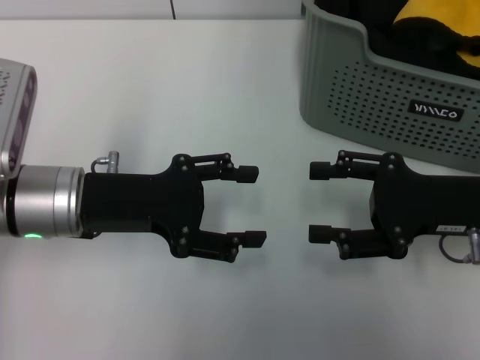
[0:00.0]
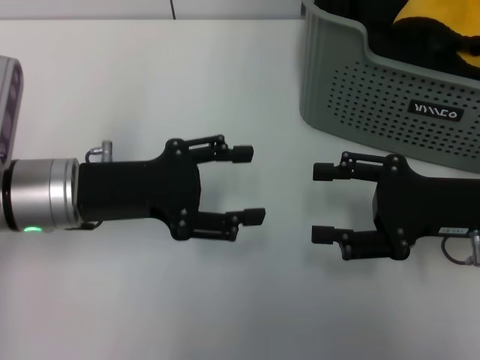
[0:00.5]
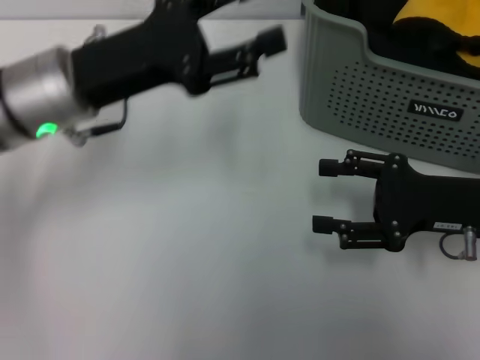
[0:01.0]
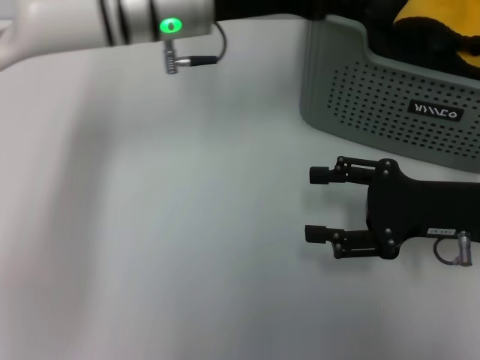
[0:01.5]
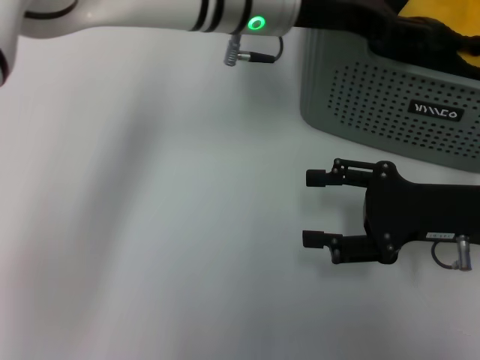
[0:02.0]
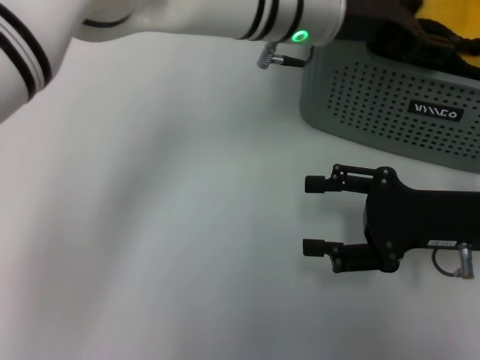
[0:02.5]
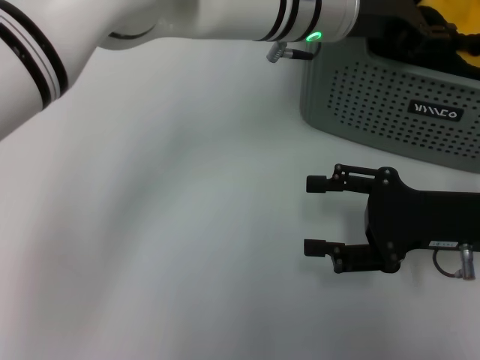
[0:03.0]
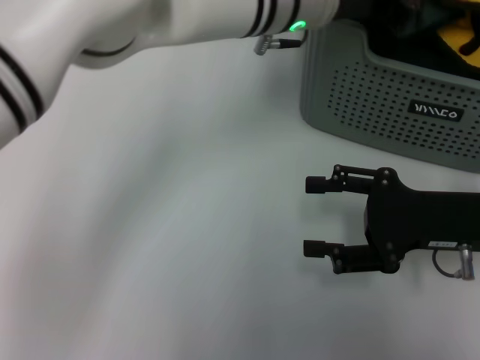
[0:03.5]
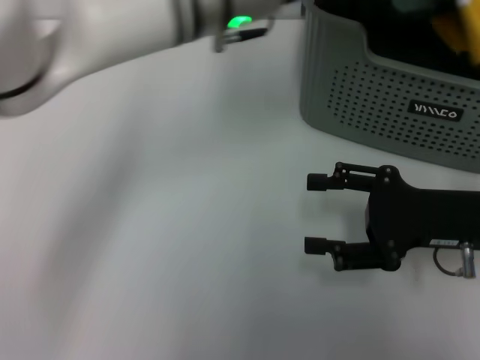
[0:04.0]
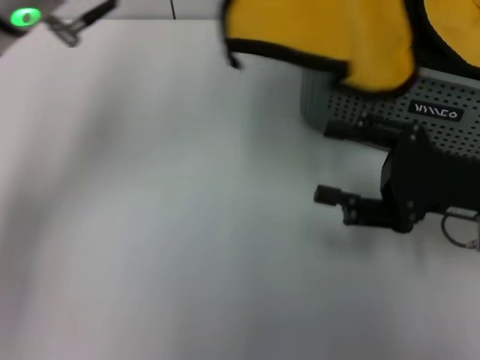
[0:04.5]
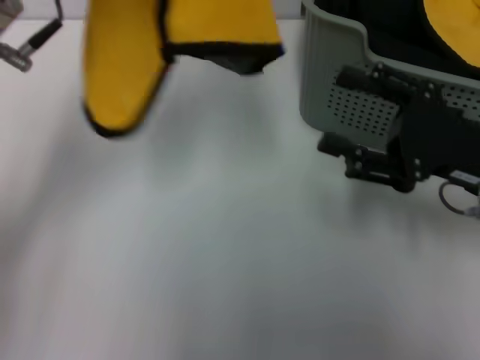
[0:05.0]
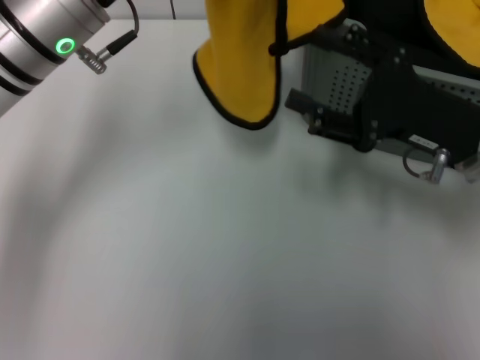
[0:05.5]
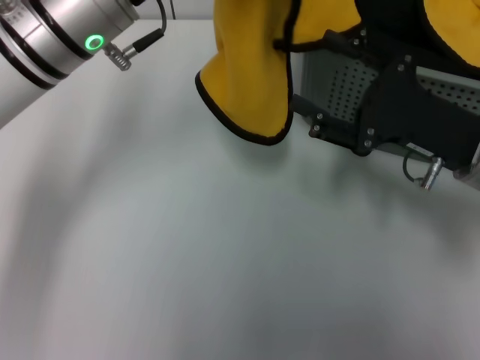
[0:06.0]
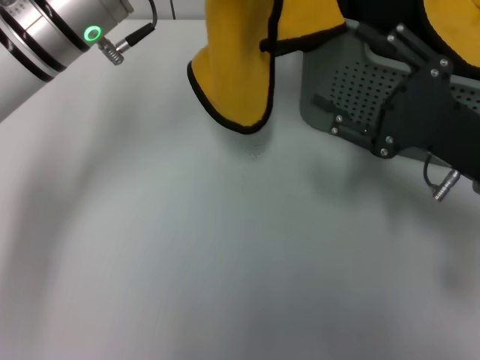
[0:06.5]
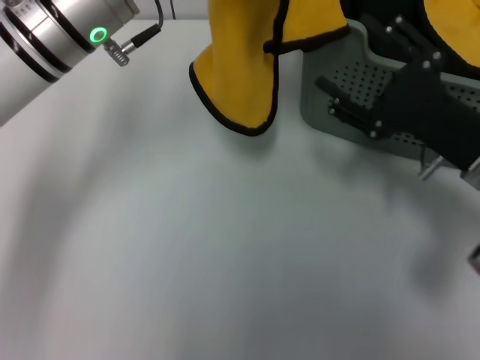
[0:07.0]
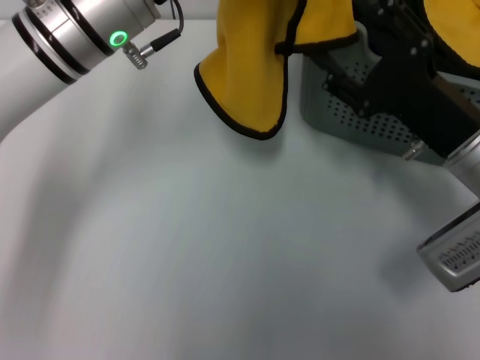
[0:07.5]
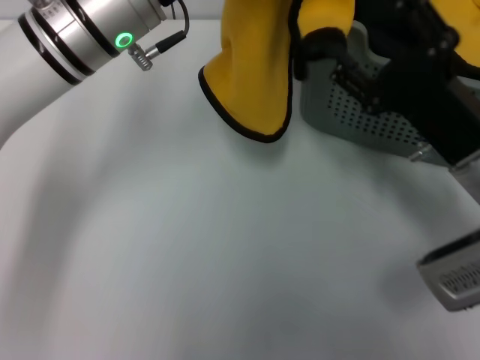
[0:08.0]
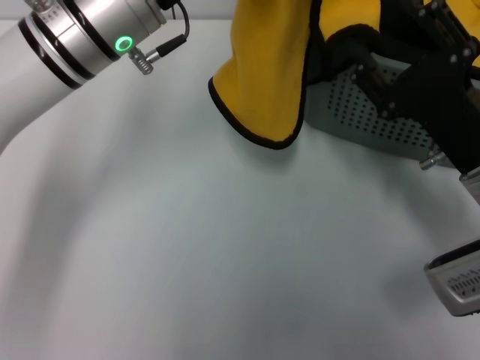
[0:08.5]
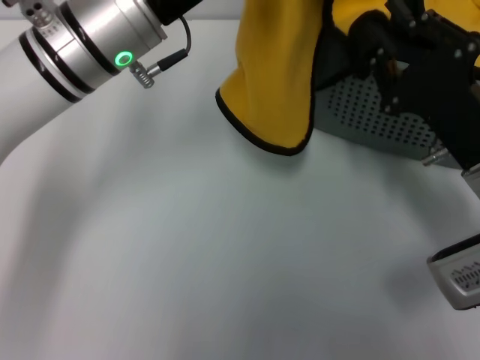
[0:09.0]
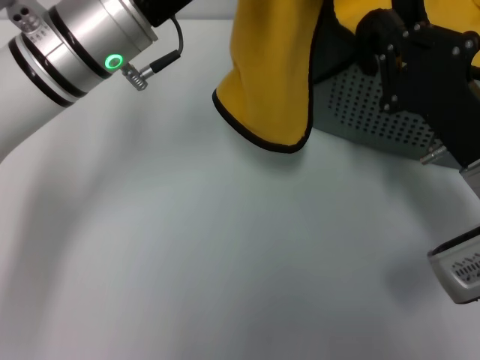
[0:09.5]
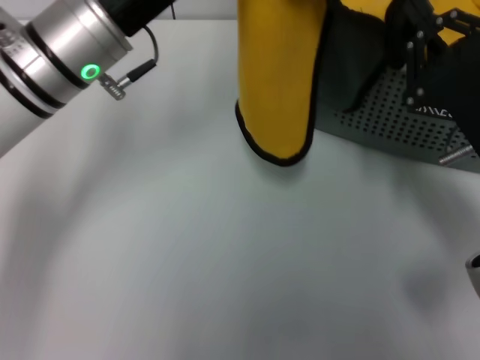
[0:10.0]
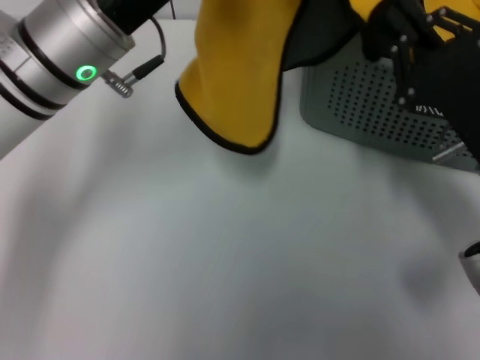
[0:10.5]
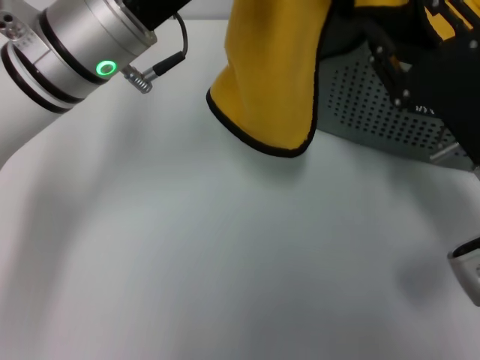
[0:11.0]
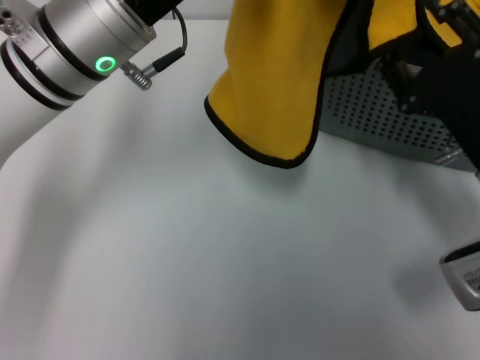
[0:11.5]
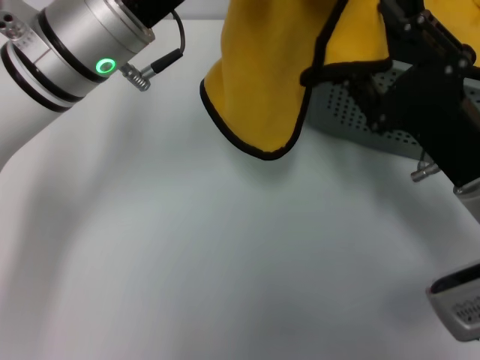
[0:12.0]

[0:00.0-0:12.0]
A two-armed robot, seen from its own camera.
Task of the whole recording: pick up the towel from the storage box and lay it flat on the table.
Step, 0:00.0 to 0:03.0: Pick up a towel with the left gripper.
0:00.0 to 0:02.0: The left gripper travels to the right, forward and upward by some 25 cm.
0:02.0 to 0:04.0: The left gripper ends up some 5 cm from where it was, and closes.
0:04.0 to 0:06.0: The left gripper is displaced to the left by about 10 cm.
0:08.0 to 0:10.0: The right gripper closes.
0:10.0 to 0:12.0: The right gripper opens its fingers.

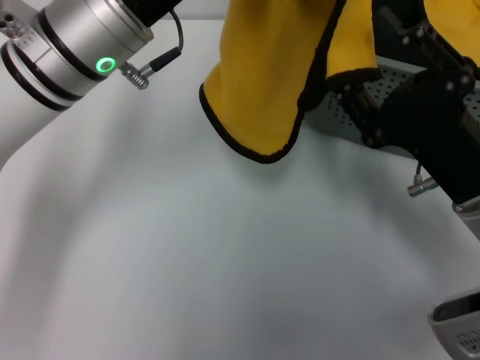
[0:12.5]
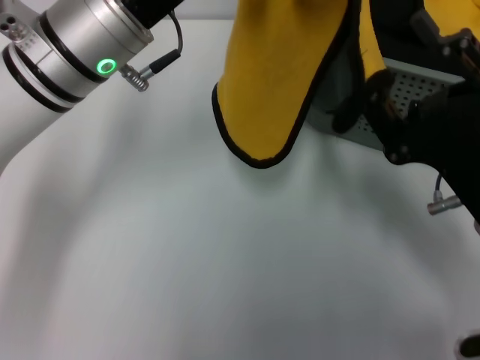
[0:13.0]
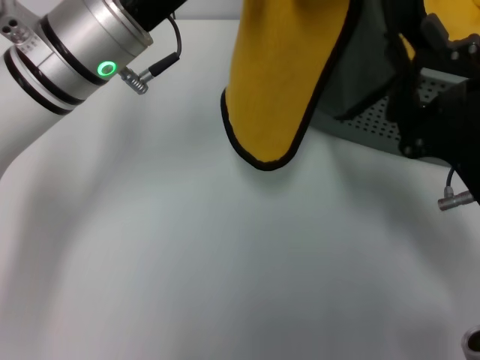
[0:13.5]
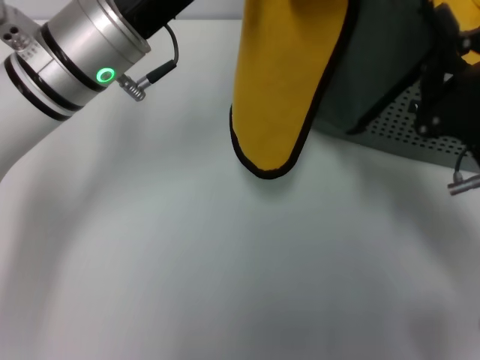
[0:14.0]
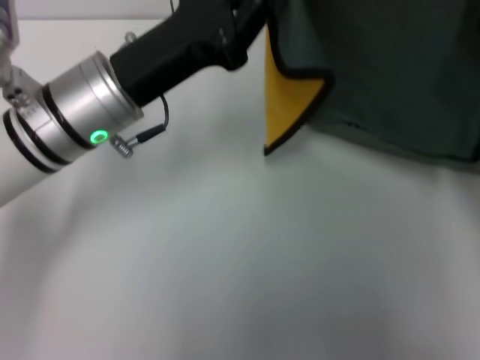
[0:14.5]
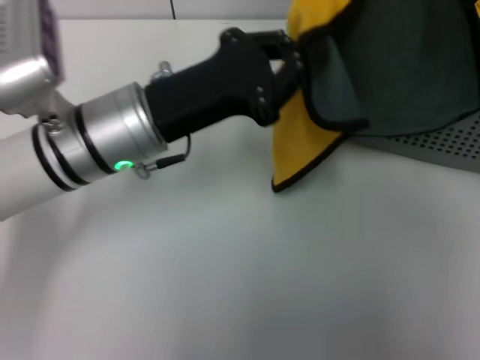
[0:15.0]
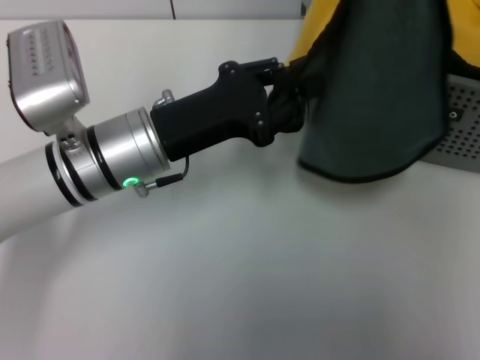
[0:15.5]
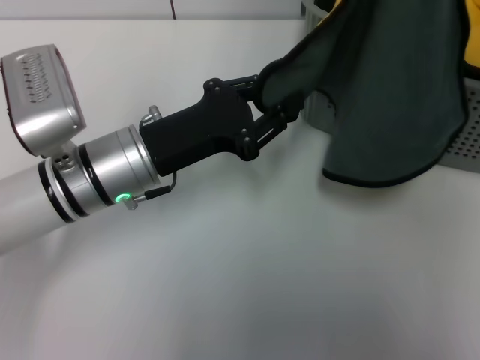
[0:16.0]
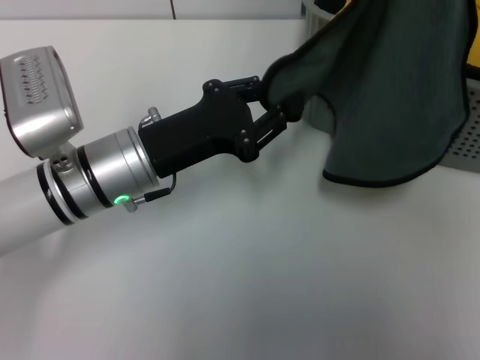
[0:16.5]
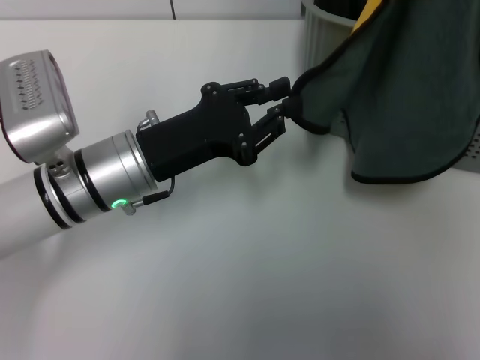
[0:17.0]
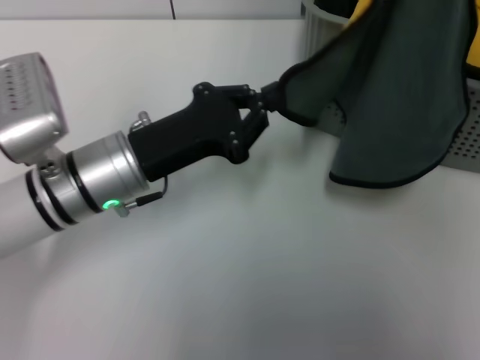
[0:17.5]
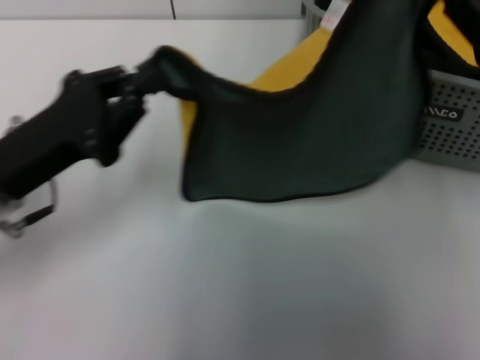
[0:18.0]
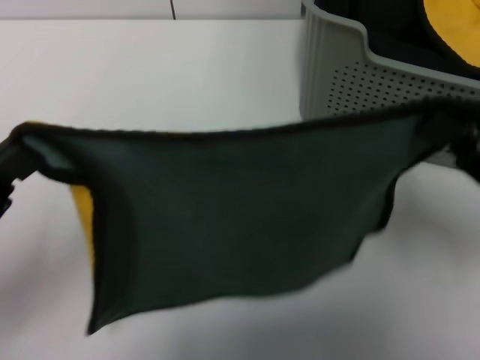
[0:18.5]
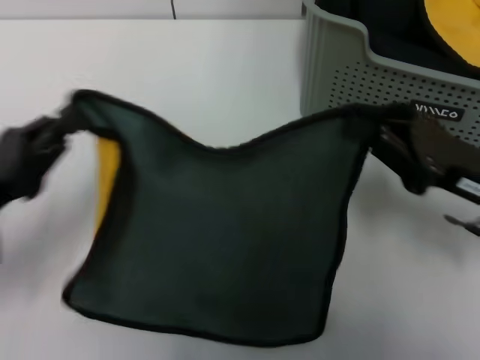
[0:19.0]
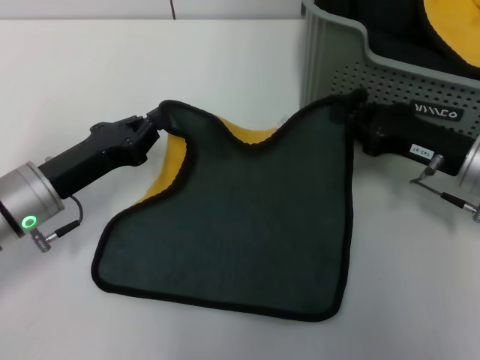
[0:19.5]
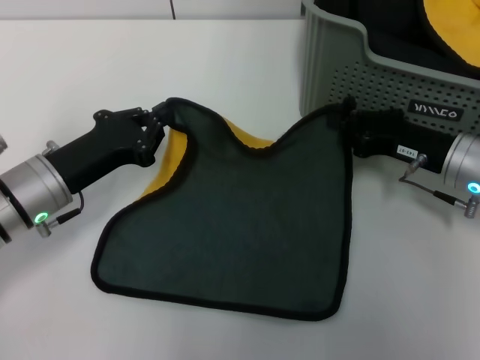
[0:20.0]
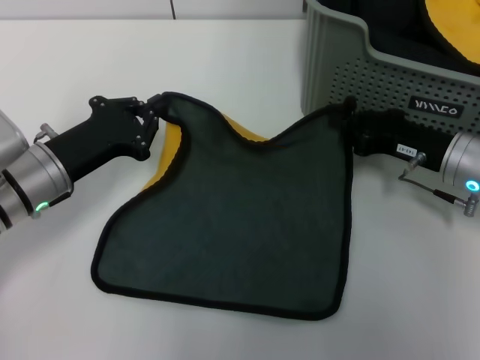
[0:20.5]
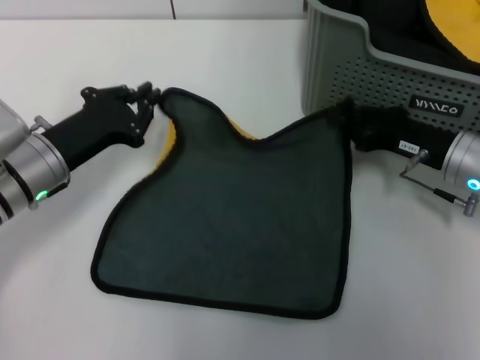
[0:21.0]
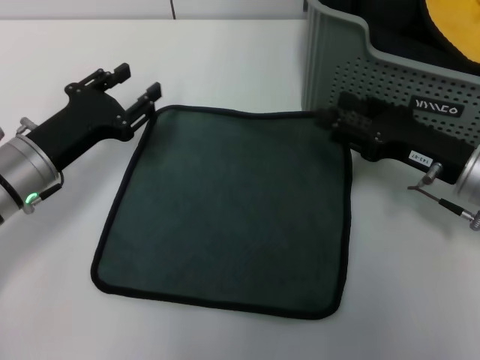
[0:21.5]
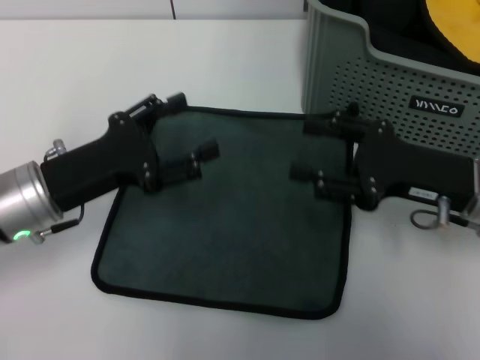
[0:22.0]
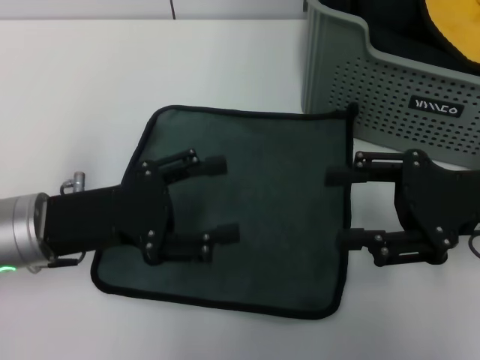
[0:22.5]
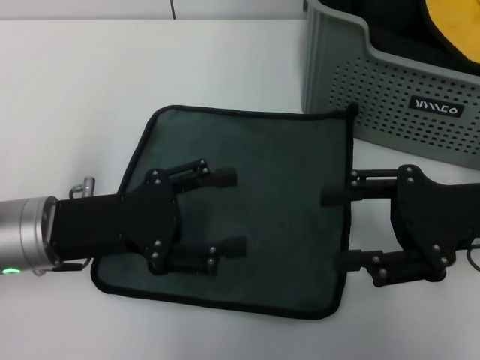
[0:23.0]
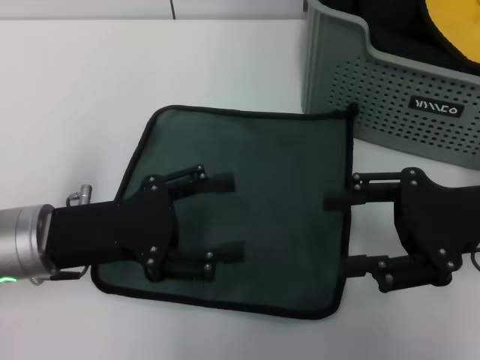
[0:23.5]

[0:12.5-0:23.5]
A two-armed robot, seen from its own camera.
Task of the whole recording: pick up the towel from the storage box and lay it flat on the table.
Step, 0:14.0 to 0:21.0: Spread the towel flat with the right gripper.
0:12.5 to 0:14.5: The right gripper heads to the right, covering approximately 5 cm, and closes up. Meanwhile the left gripper is displaced downward by approximately 5 cm.
0:14.5 to 0:16.0: The right gripper moves upward, about 5 cm; the left gripper goes roughly 5 cm downward.
0:16.0 to 0:18.0: The left gripper shifts some 10 cm to the left and backward.
0:18.0 to 0:20.0: The left gripper travels downward by approximately 5 cm, and moves about 10 cm backward and comes back. Meanwhile the right gripper is displaced downward by approximately 10 cm.
0:20.0 to 0:21.5: The right gripper opens its fingers, while the left gripper opens.
0:21.5 to 0:23.5: The left gripper moves backward, about 5 cm, and opens, while the right gripper shifts about 5 cm upward.

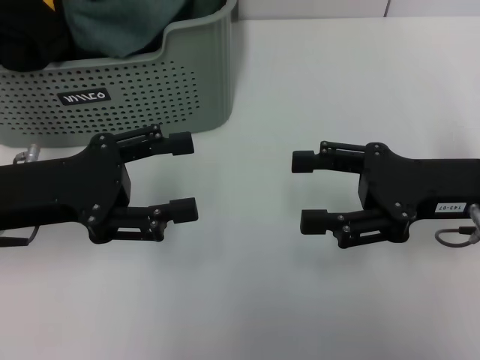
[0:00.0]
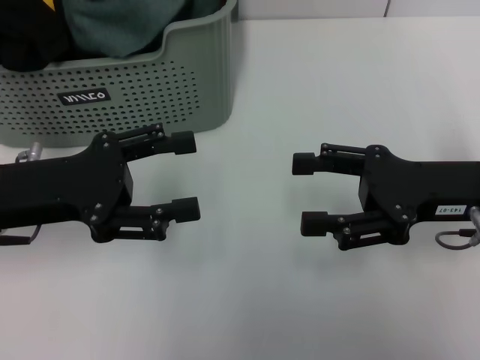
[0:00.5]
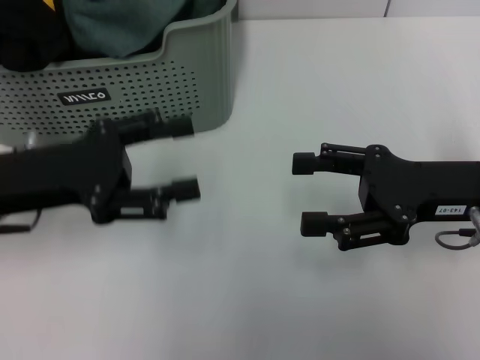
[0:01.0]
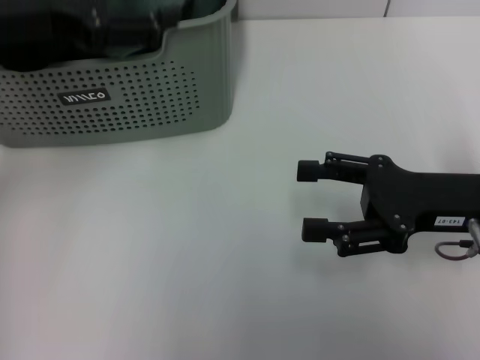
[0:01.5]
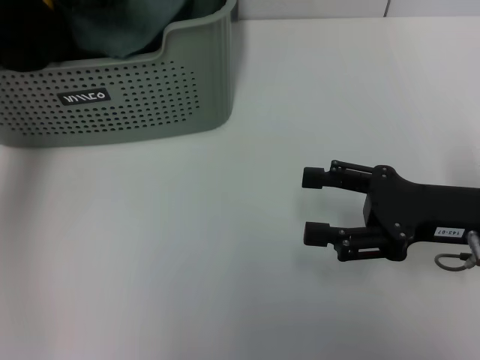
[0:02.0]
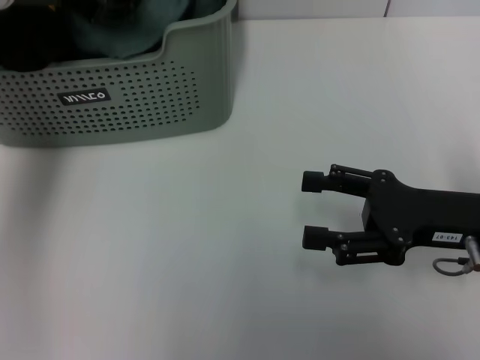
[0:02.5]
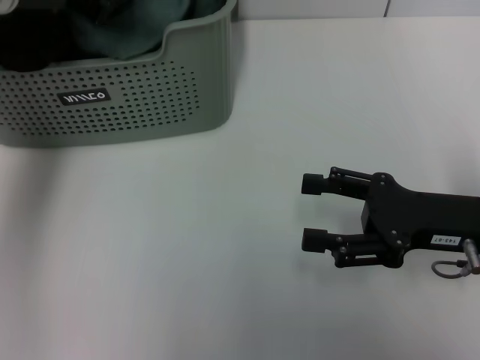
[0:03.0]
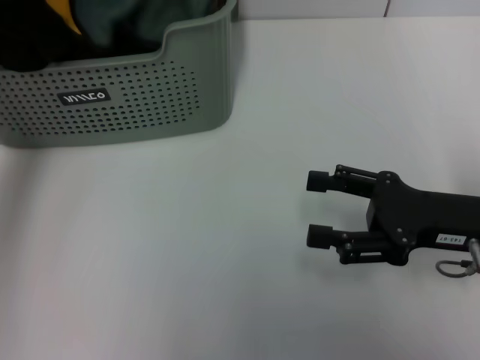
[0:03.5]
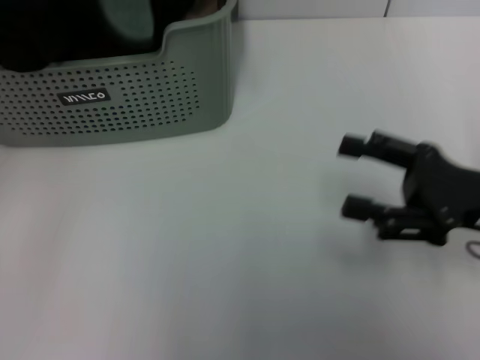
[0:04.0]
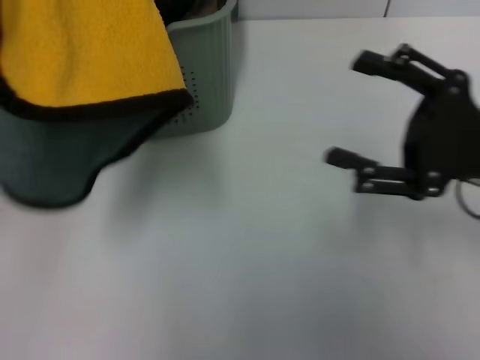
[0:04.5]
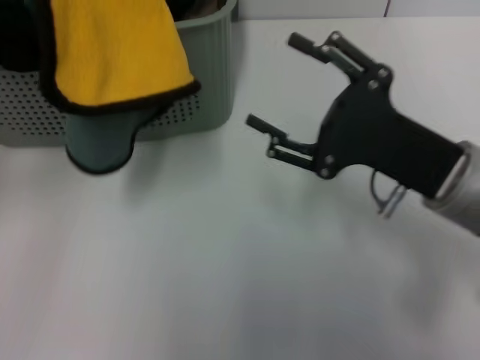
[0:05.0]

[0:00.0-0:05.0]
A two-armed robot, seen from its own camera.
Task of the whole recording: pick up the towel from the storage box and lay it flat on the table.
Step, 0:00.0 to 0:03.0: Pick up a towel with the left gripper.
0:00.0 to 0:02.5: The left gripper heads upward and forward, covering some 15 cm.
0:02.5 to 0:05.0: The left gripper moves backward and to the left, approximately 10 cm, and closes its fingers. Meanwhile the right gripper moves to the left, roughly 5 cm.
